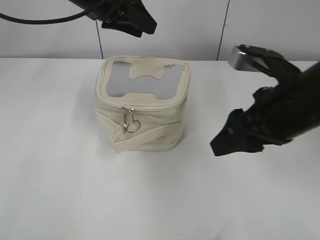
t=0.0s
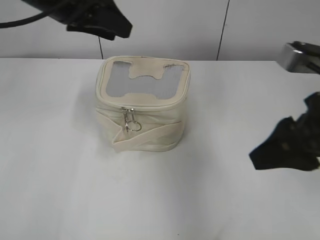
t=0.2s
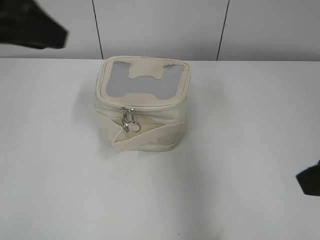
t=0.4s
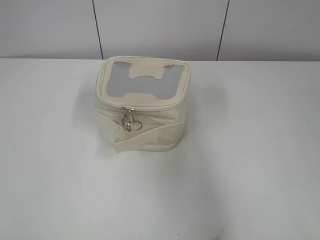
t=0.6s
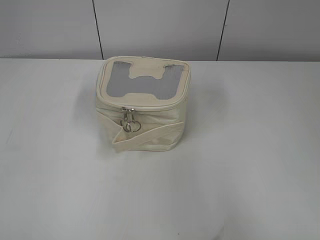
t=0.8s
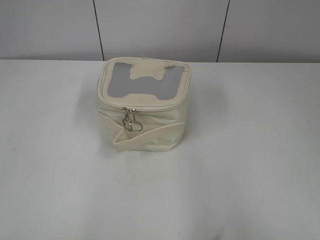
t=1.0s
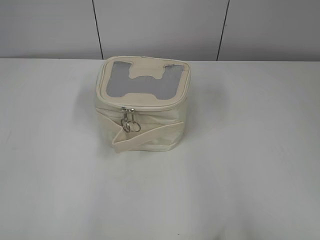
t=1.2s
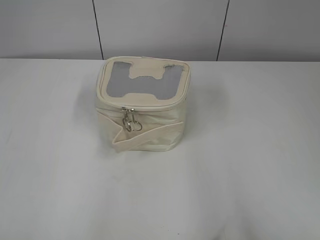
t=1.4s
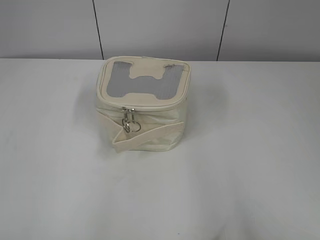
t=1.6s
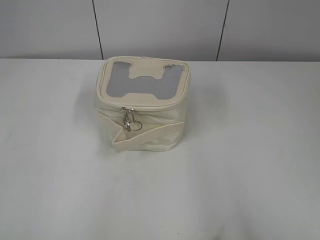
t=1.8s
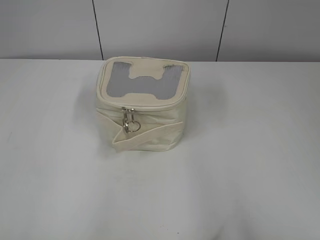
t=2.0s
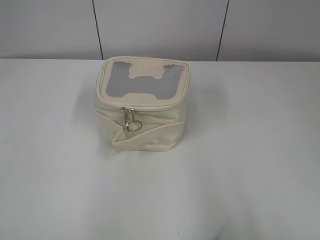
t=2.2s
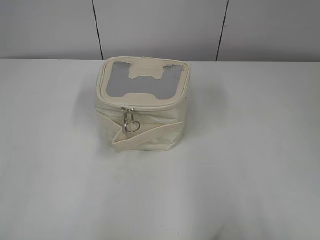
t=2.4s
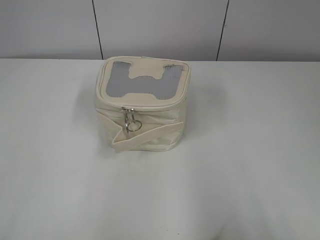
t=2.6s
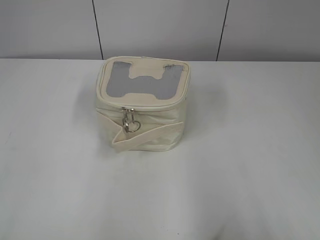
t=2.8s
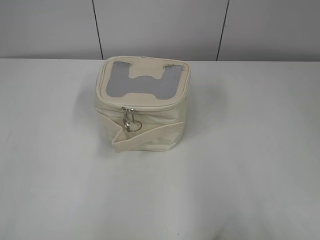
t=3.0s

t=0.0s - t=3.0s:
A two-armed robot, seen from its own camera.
t=0.0s - t=1.6s: The left gripper heads backward and to the left, covering roughly 50 cm; the right gripper travels backward and to the right by roughly 30 cm.

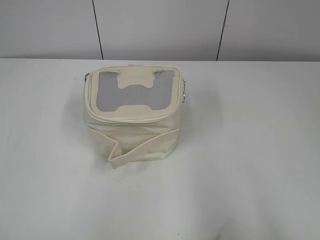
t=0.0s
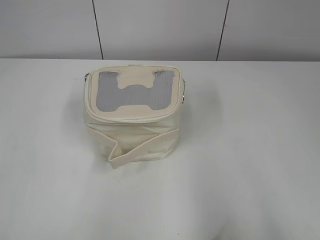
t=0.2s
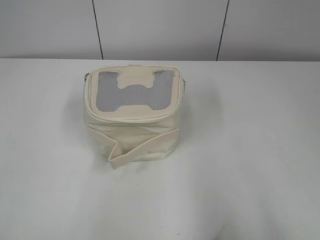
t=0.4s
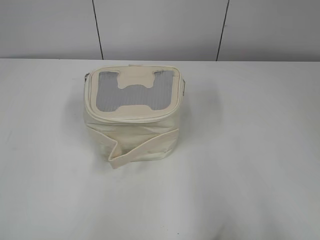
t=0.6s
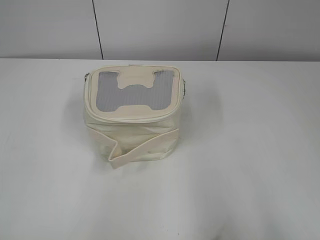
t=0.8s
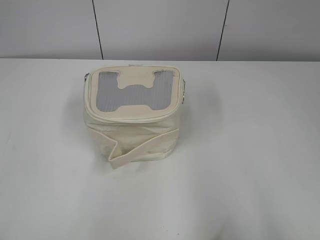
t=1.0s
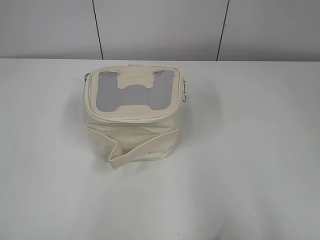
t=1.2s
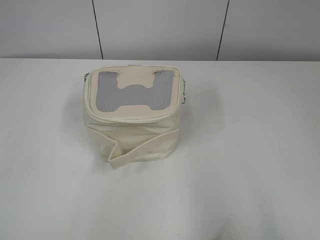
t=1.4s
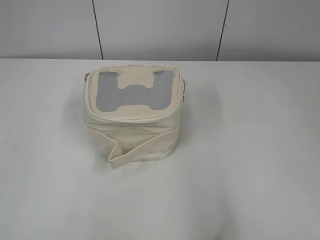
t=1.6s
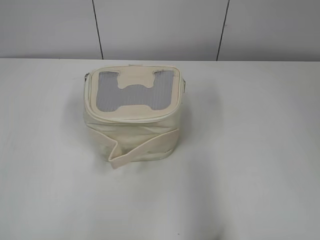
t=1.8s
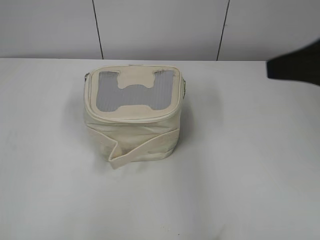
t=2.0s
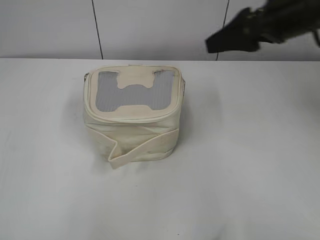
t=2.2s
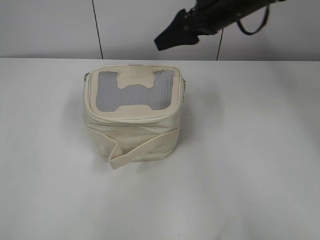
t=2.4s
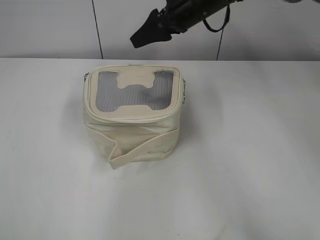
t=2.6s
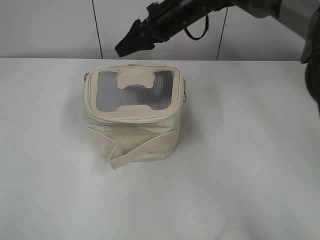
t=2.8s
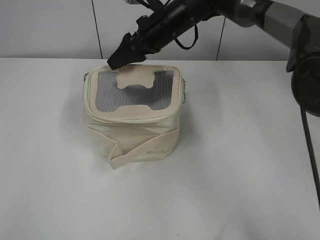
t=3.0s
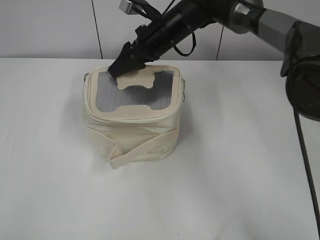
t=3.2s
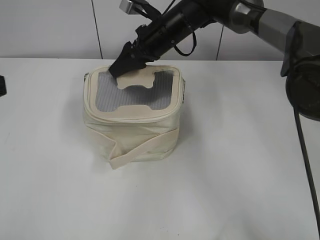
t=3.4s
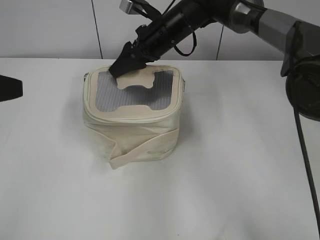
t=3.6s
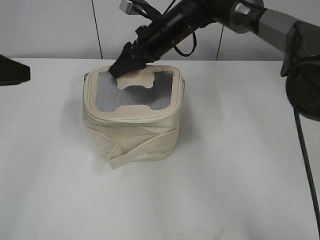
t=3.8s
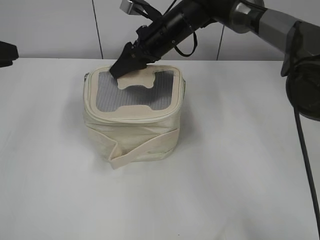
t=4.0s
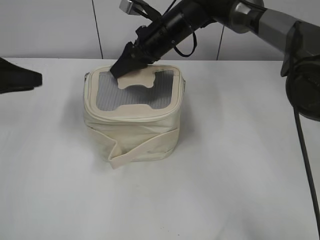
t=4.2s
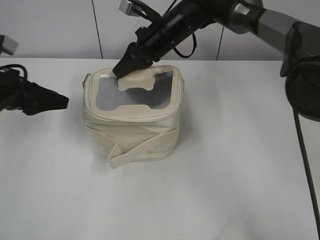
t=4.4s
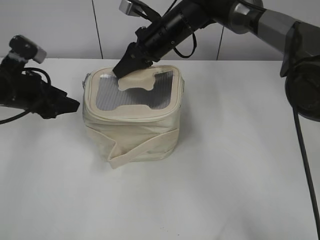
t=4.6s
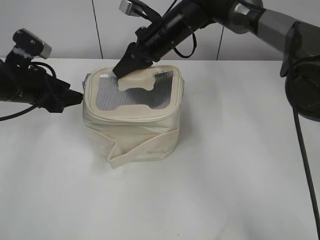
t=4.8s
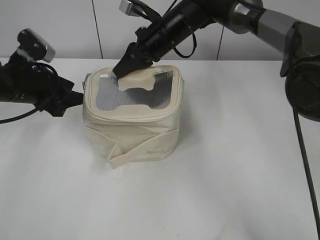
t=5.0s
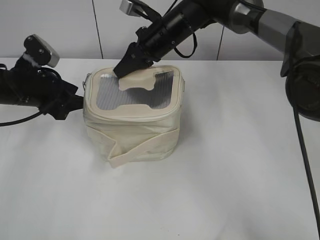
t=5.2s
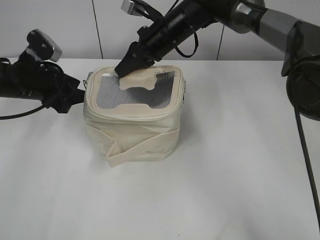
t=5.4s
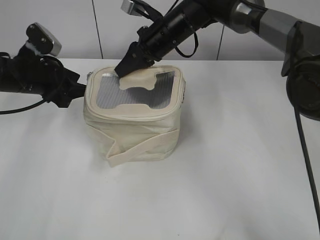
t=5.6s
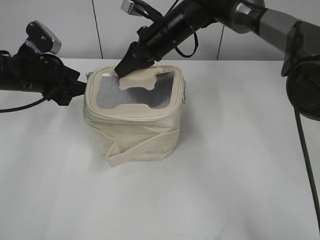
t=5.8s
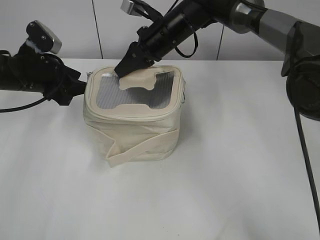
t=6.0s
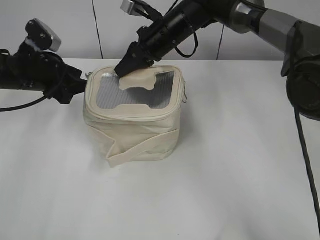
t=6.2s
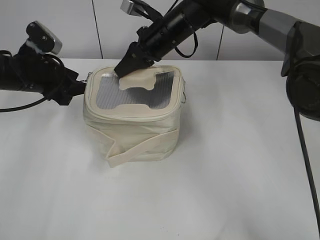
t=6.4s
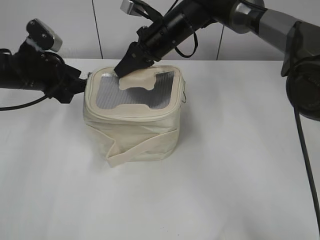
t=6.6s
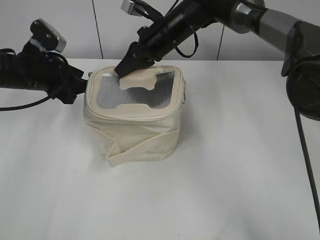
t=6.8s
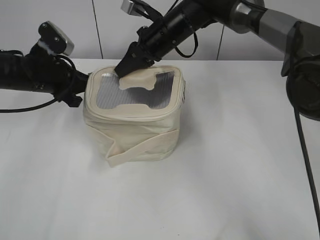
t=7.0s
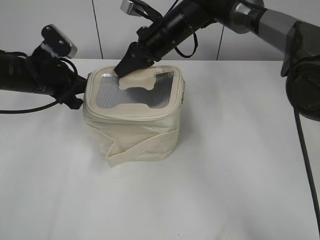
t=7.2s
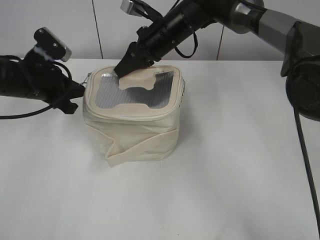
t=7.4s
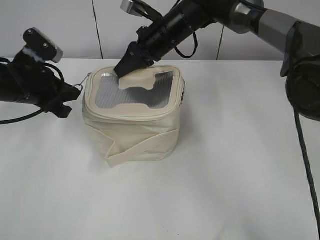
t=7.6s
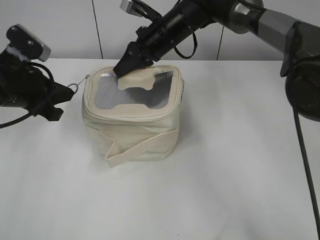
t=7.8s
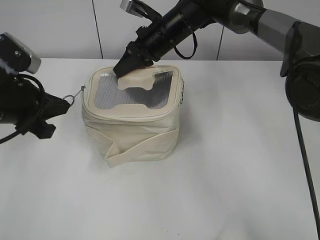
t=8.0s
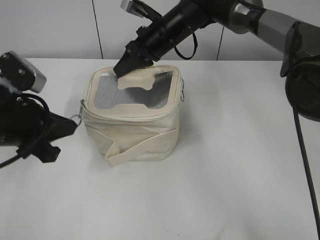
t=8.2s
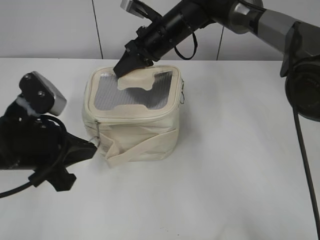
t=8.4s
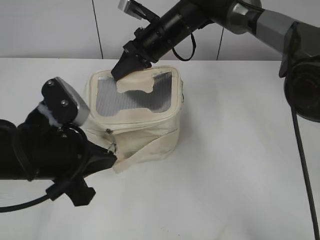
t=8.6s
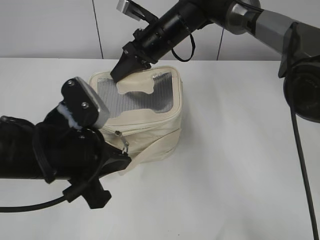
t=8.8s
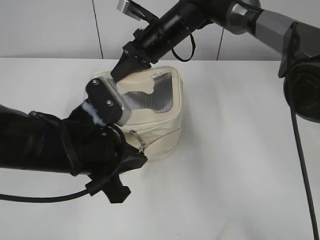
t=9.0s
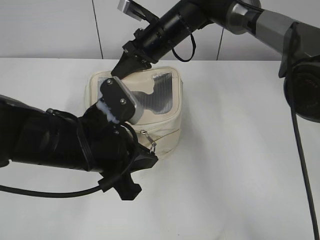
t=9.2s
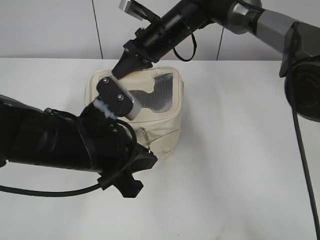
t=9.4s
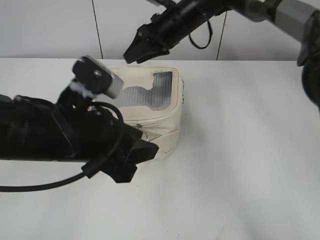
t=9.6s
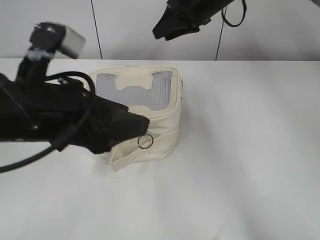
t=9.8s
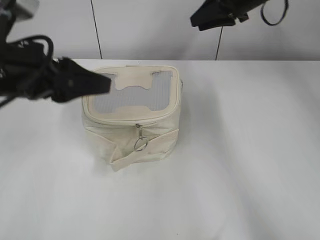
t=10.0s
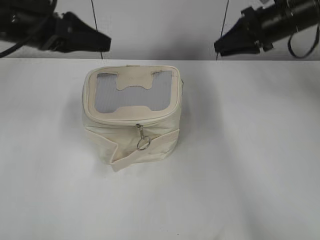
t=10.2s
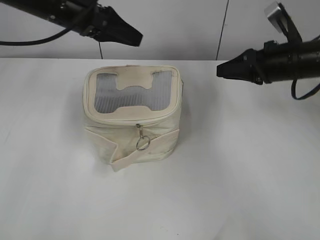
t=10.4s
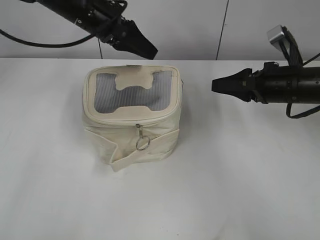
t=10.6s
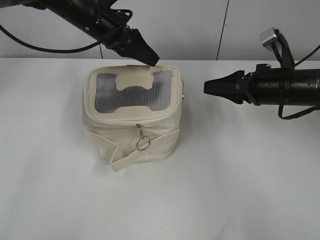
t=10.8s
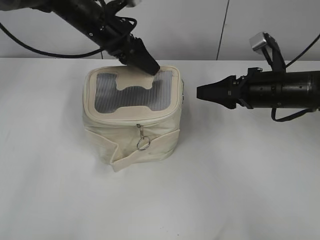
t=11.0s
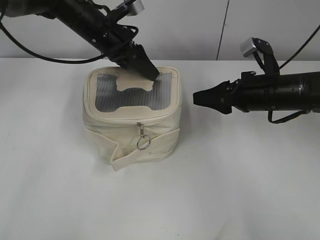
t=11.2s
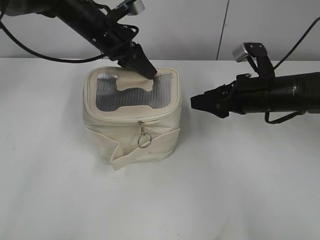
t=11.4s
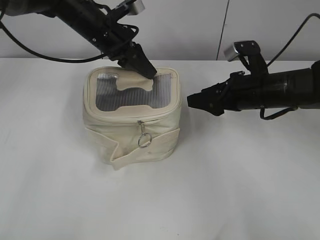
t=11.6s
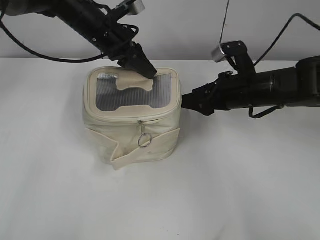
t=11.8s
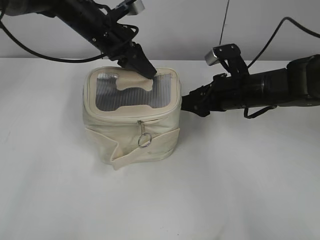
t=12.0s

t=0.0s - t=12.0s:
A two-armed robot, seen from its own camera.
Step, t=0.0s - t=9.4s: Zip up the bag with your left hand.
t=1.6s - t=3.0s: The left gripper goes about 10 cm forward and to the right; the right gripper shifts roughly 50 cm forward and to the left.
t=3.0s - t=4.4s: The right gripper closes up. The left gripper heads forward and downward, covering approximately 30 cm, and opens.
t=4.4s - t=6.0s: The left gripper moves some 5 cm.
t=6.0s - t=7.6s: The left gripper closes.
t=7.6s - t=9.0s: The left gripper is displaced backward and to the right by roughly 20 cm.
t=9.0s - t=10.4s: The right gripper goes about 20 cm to the right; the left gripper shifts about 20 cm forward and upward, and opens its fingers.
t=10.4s - t=12.0s: The left gripper goes about 10 cm downward and forward, and closes up, while the right gripper is displaced to the left and downward by roughly 10 cm, and opens.

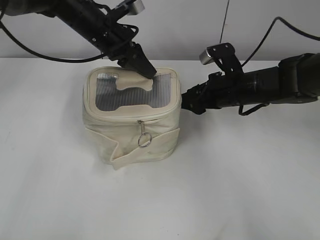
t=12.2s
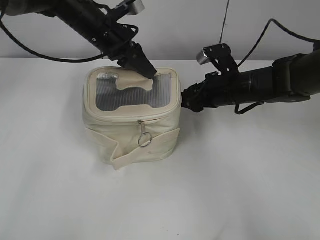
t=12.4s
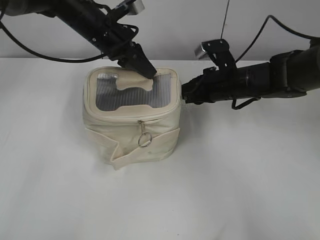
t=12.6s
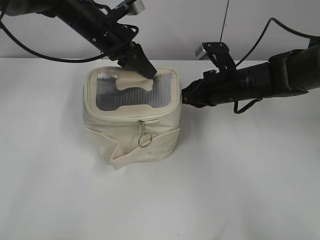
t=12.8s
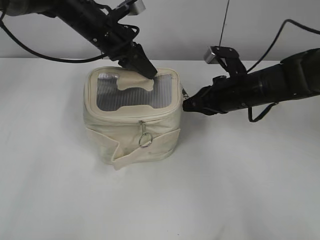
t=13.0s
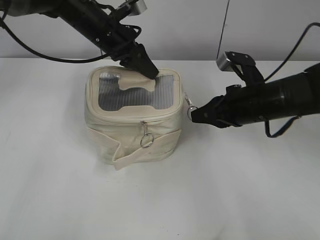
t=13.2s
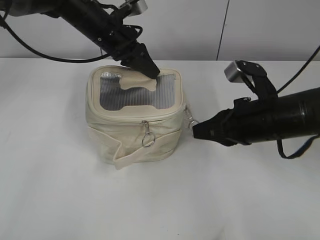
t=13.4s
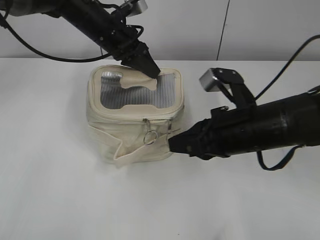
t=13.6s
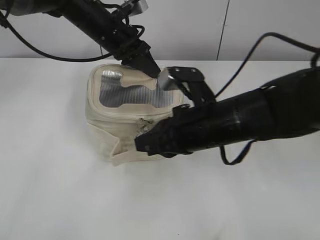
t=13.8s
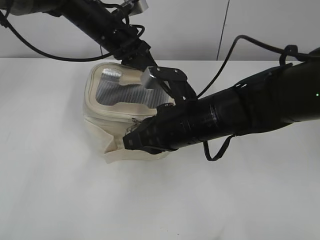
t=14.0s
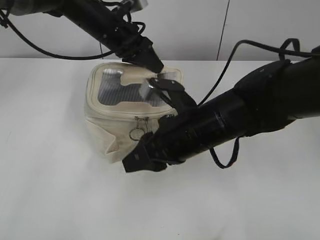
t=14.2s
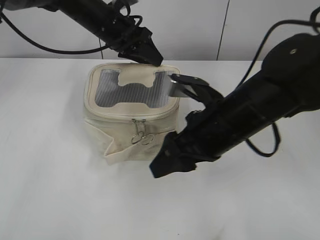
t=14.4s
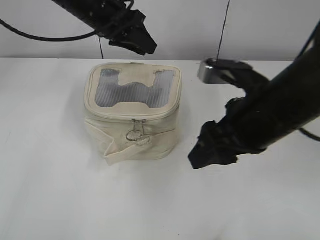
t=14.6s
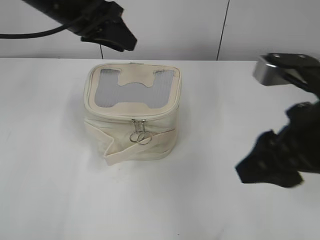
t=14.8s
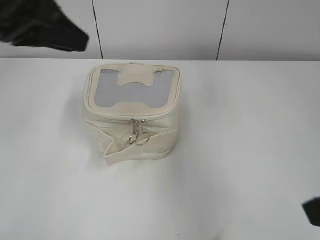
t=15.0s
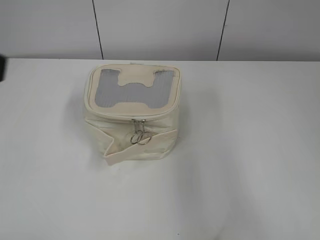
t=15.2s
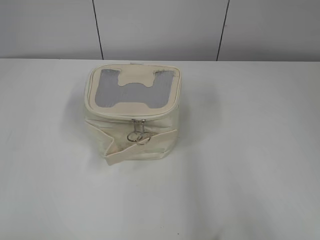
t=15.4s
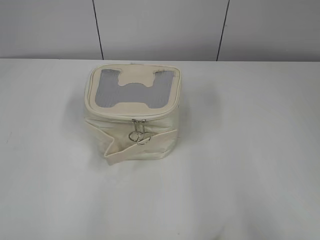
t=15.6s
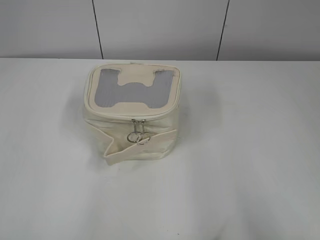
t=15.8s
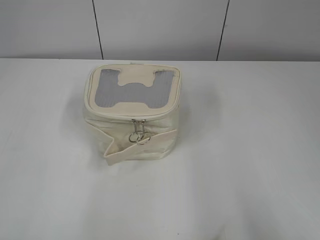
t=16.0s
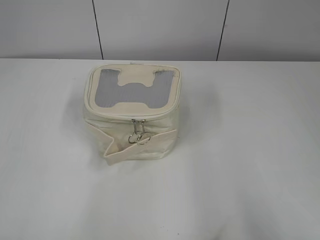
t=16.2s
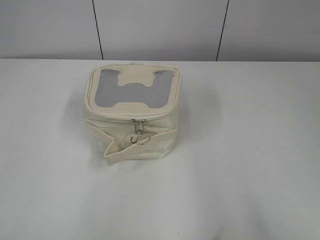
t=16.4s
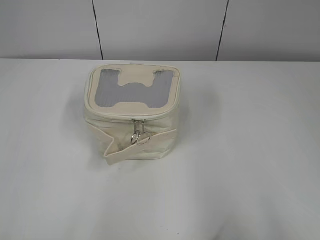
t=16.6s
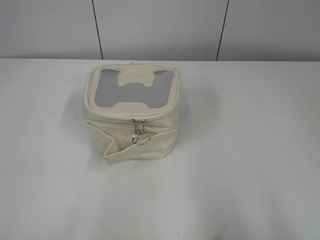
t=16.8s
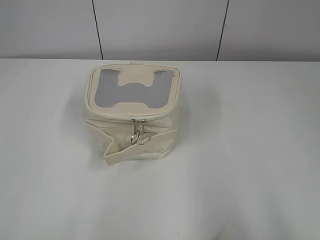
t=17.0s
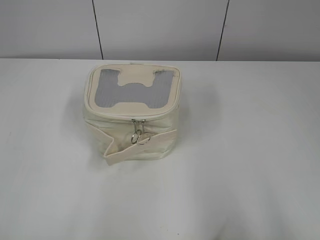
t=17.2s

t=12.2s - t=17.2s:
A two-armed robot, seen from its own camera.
Step, t=14.2s - t=14.4s: Hold the bag with your left hand.
t=12.2s - t=13.8s: The right gripper goes about 15 cm backward and to the left, and closes.
t=13.8s - t=15.6s: The right gripper shifts about 35 cm backward, to the right and upward, and opens. The left gripper heads backward and to the left, covering some 50 cm, and opens its fingers.

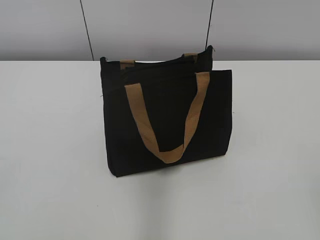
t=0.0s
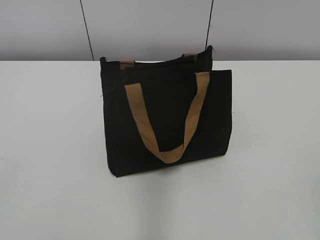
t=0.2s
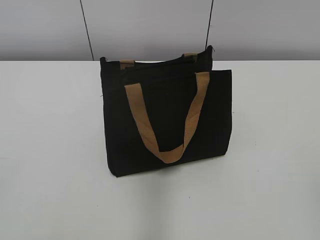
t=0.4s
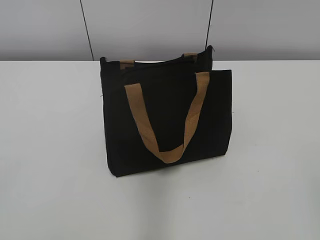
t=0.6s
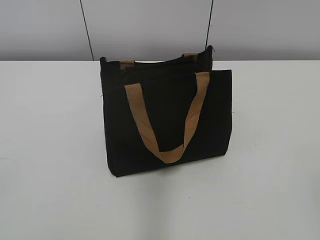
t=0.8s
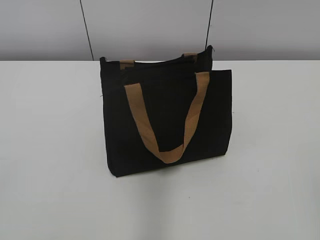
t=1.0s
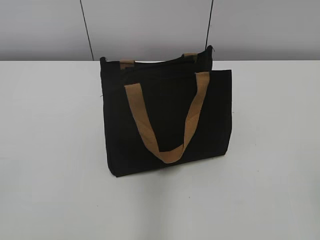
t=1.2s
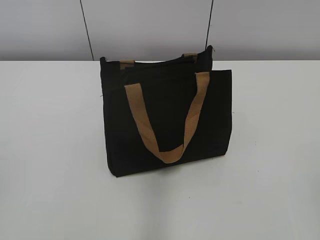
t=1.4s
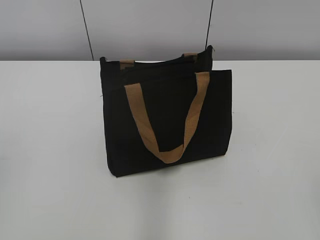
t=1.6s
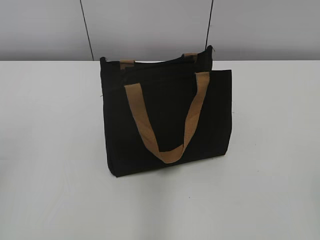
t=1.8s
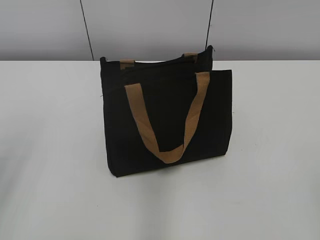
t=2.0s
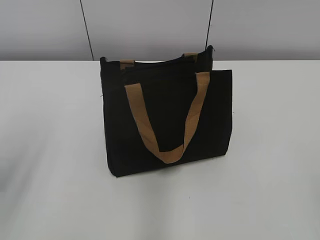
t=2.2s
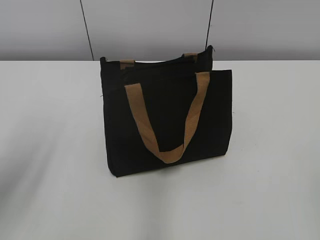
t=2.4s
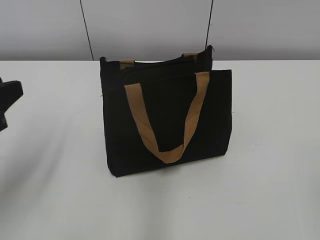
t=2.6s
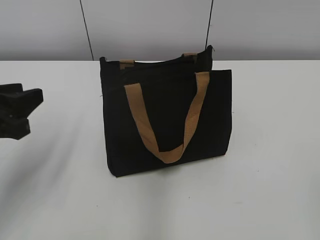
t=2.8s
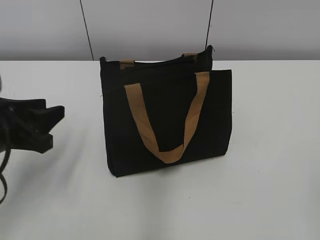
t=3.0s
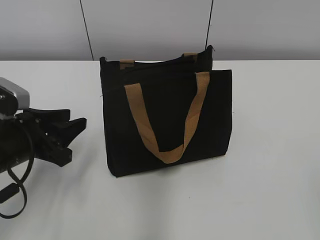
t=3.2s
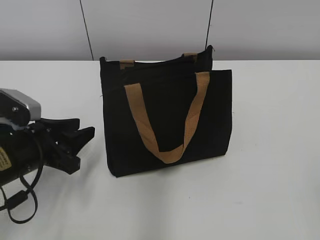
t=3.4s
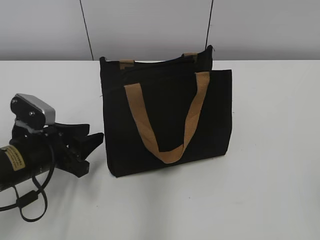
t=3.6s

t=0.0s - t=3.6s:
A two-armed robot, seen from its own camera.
t=1.8s - t=3.6s: The left gripper is displaced downward, forward and to the right by about 30 cm.
